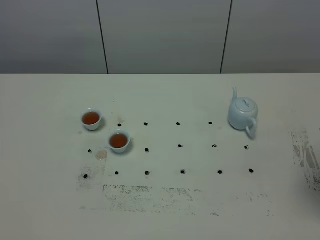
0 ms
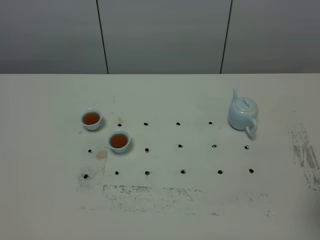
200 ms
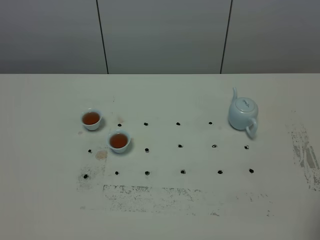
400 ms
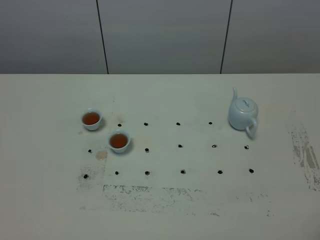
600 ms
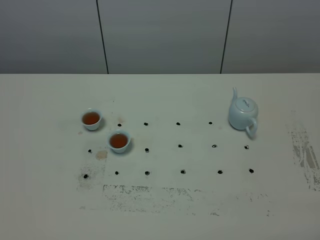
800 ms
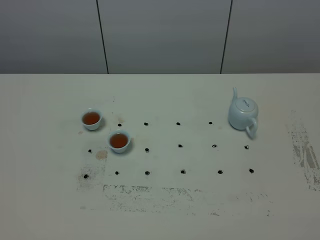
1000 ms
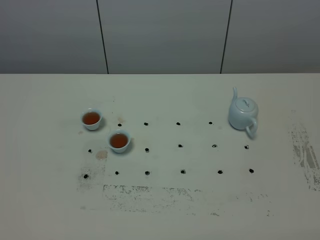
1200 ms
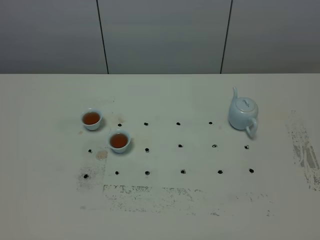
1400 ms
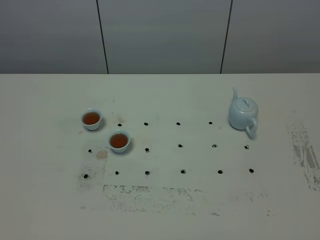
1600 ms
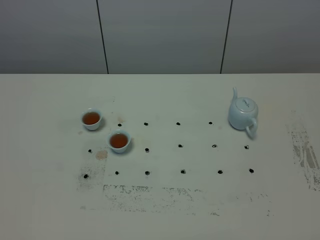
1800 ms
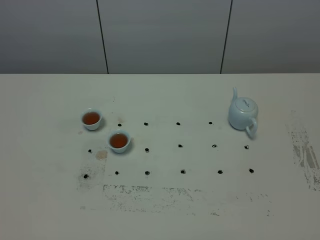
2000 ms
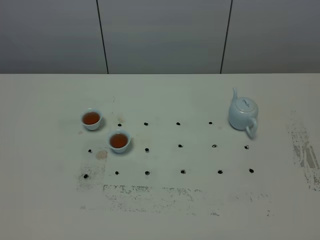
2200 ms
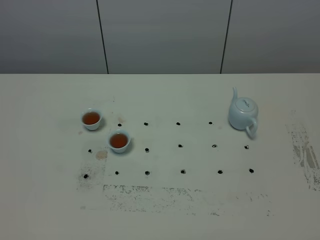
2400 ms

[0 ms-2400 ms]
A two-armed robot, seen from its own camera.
Task of the whole recording: grasp the blue porcelain teapot and pour the tea into the two blue porcelain teacups one by one, put the blue porcelain teapot back in its original place.
0 ms to 1200 ms: The right gripper goes some 20 cm backward.

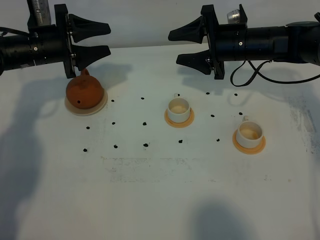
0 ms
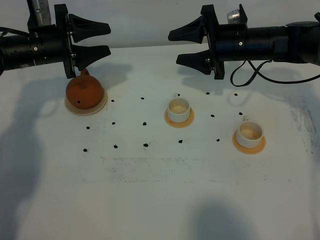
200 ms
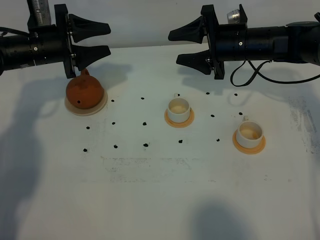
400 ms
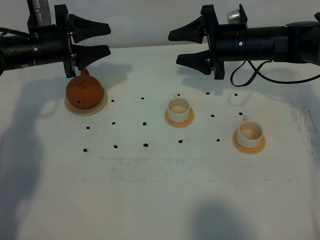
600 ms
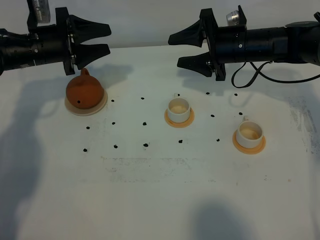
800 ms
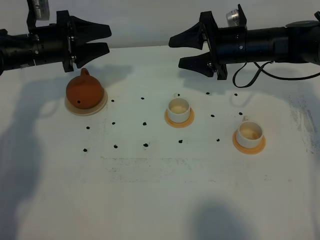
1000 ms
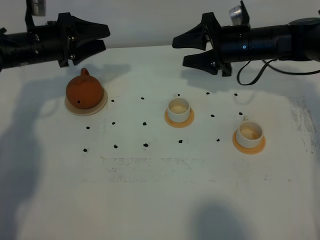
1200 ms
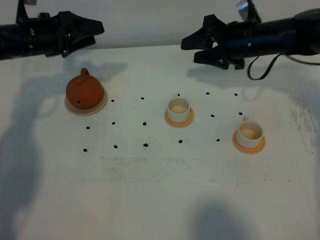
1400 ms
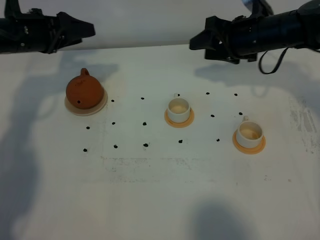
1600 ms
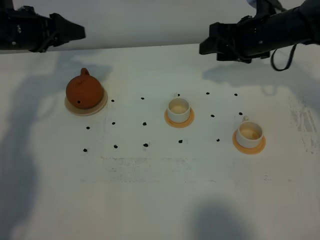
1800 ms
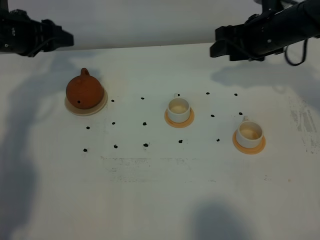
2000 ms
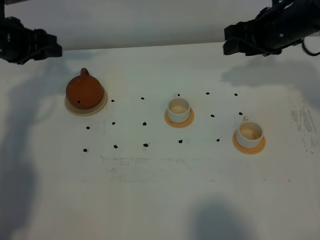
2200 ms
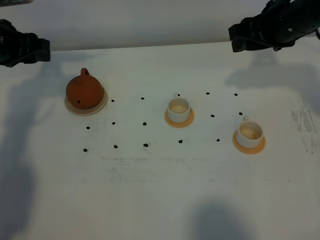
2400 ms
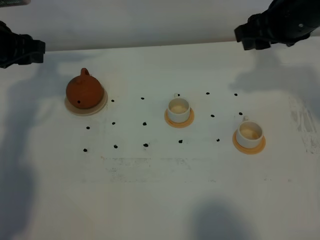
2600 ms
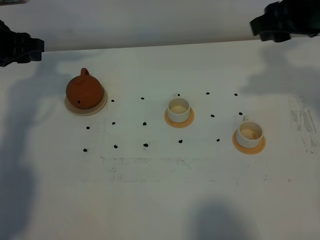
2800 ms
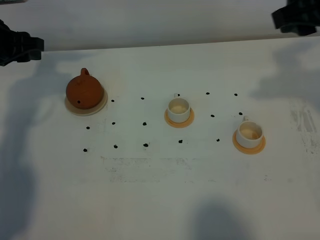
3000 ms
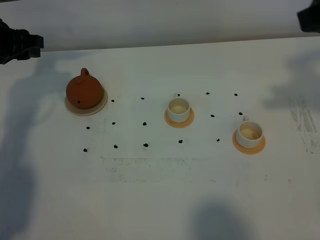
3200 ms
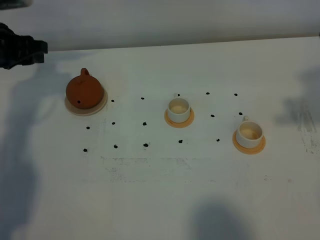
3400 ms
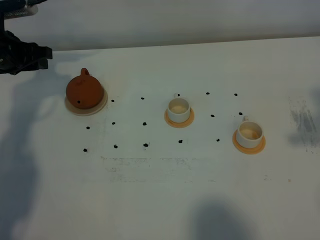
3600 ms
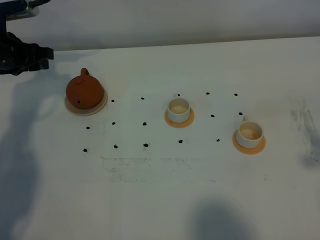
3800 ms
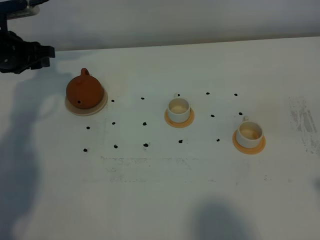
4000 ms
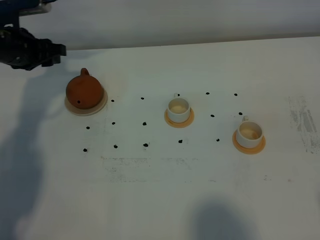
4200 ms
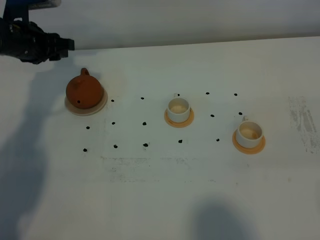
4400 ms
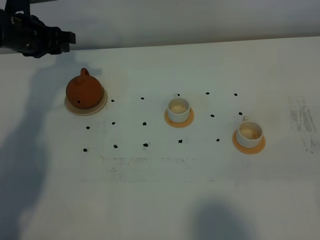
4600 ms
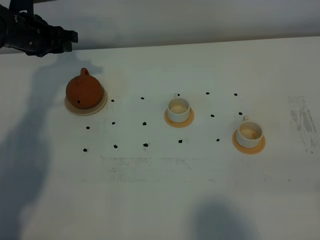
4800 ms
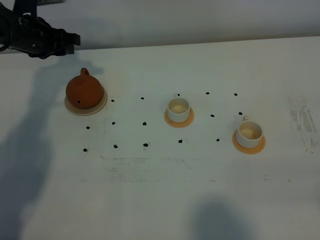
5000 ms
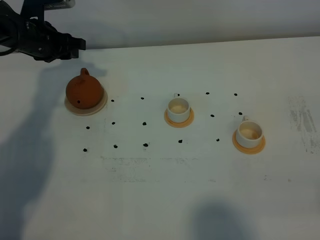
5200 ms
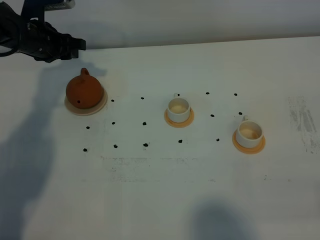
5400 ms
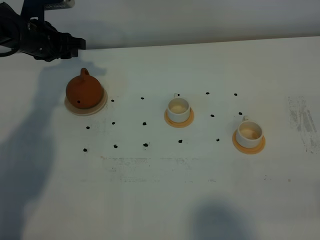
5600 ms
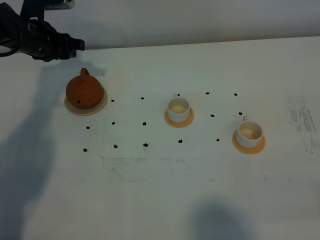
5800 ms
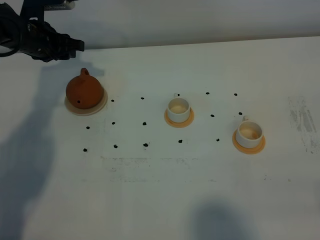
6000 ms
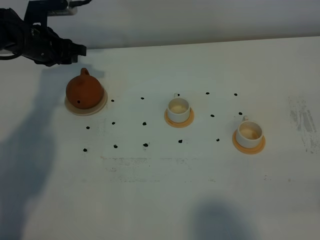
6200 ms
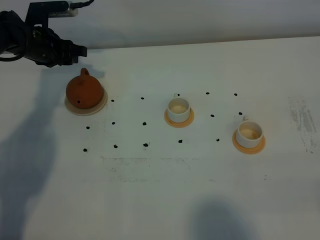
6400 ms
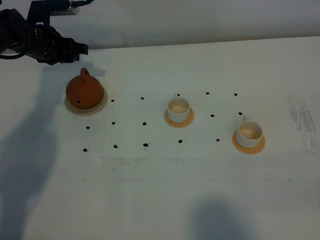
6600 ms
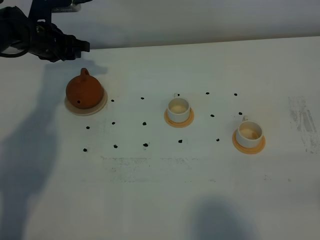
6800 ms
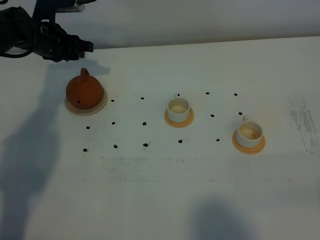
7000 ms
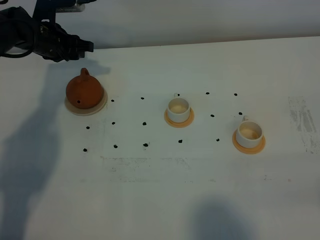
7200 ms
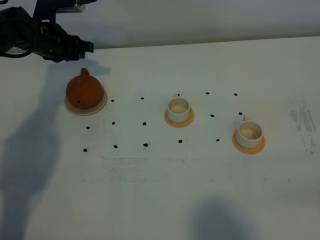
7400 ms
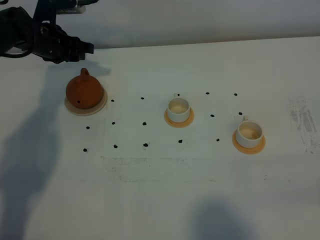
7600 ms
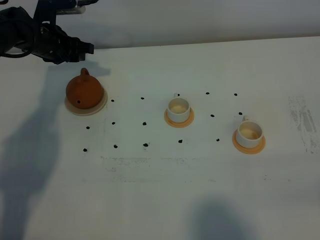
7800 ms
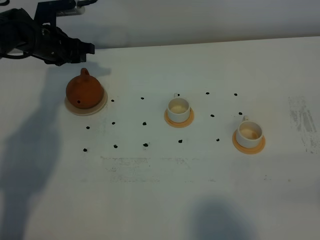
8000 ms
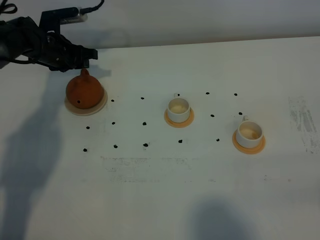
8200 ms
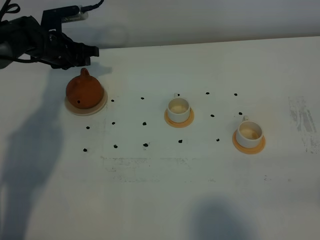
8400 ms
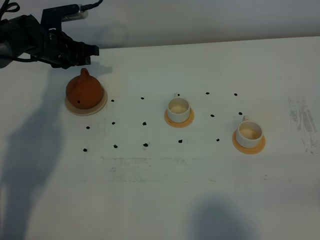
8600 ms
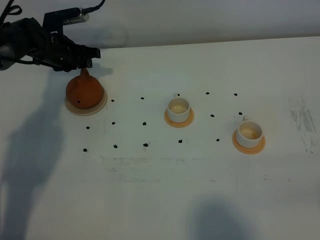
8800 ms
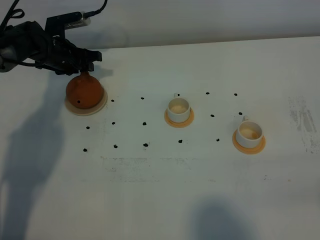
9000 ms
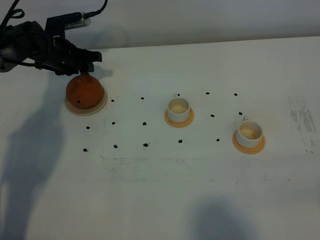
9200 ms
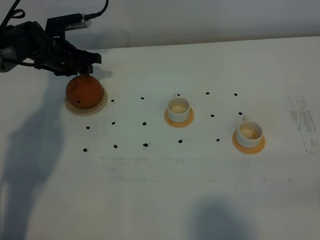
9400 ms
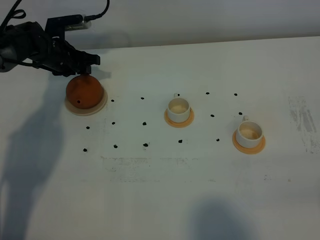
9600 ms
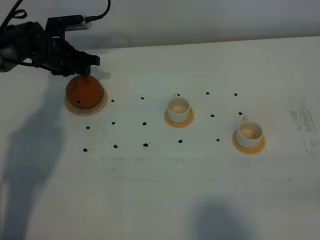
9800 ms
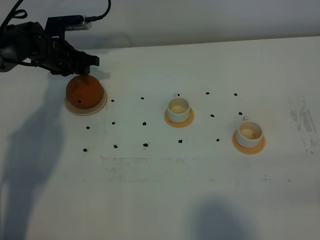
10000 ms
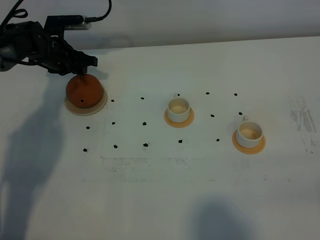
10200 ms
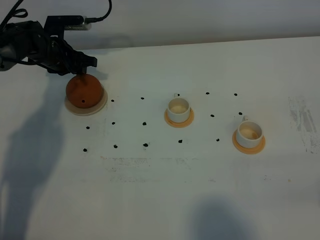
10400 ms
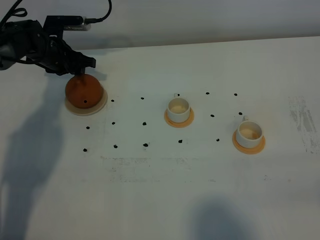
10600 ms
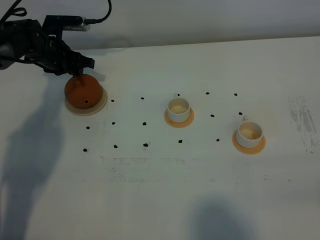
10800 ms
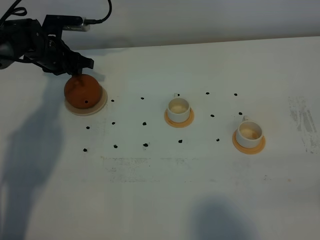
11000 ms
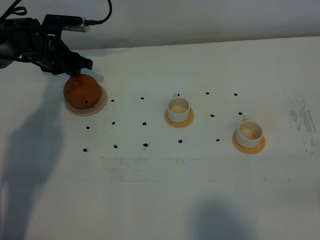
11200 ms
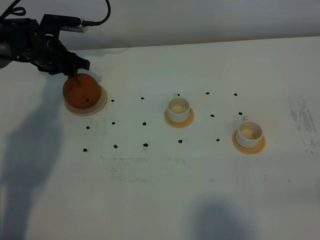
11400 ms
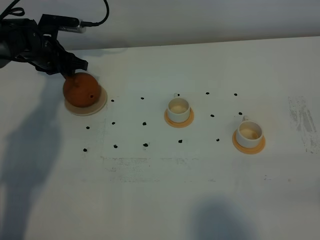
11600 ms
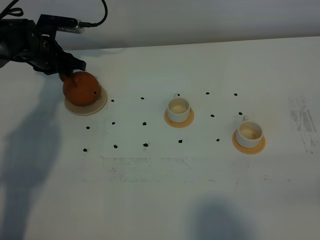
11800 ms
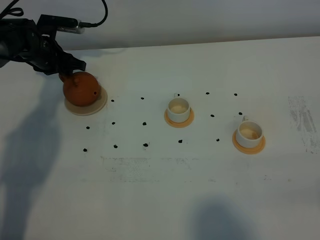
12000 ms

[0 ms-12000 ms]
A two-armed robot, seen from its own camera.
Task of the whole recording: grasp the brown teapot and pour the tea into the two white teacups one by one, put the brown teapot back in its original place.
1600 ms to 3000 ms: The right gripper is displaced upward and backward by approximately 25 cm. The left gripper changes place by some 5 cm.
3000 ms to 4400 ms: The right gripper goes some 25 cm backward; the left gripper ends up some 5 cm from where it was.
6000 ms to 7600 ms: The grippers stay close to where they were, moving slightly.
7600 ms to 9000 ms: The left gripper changes place by roughly 5 cm.
9000 ms to 12000 ms: The grippers make only small movements.

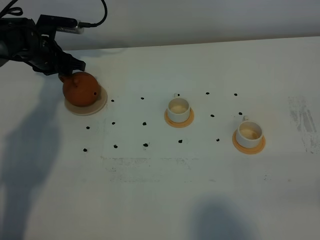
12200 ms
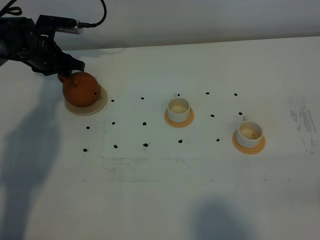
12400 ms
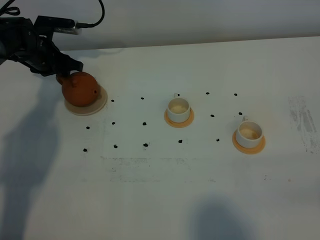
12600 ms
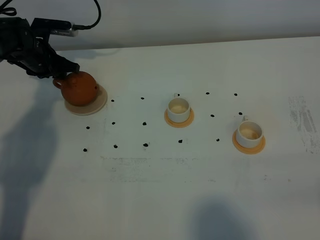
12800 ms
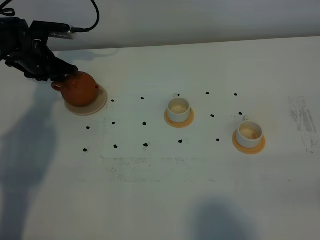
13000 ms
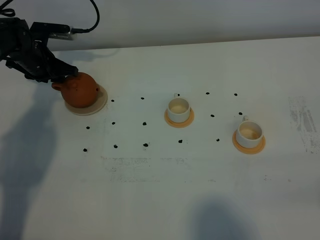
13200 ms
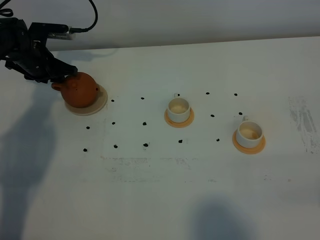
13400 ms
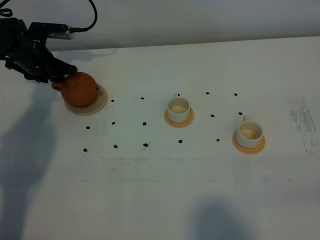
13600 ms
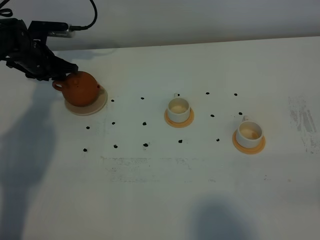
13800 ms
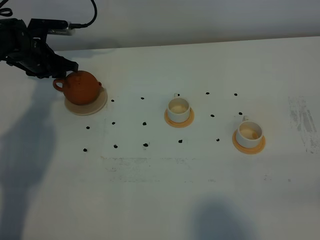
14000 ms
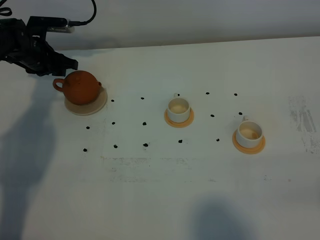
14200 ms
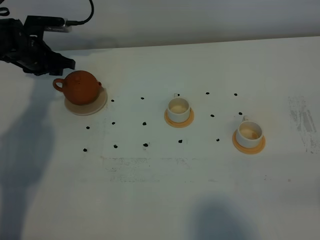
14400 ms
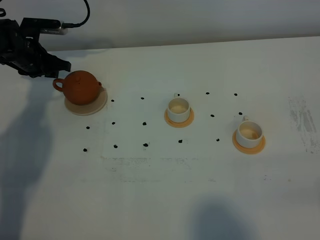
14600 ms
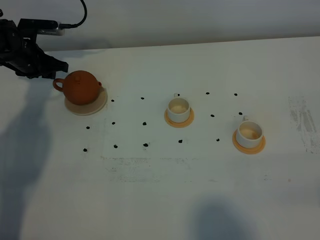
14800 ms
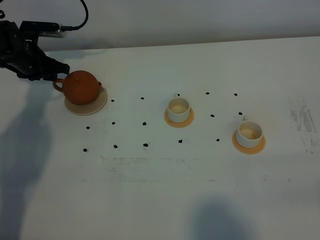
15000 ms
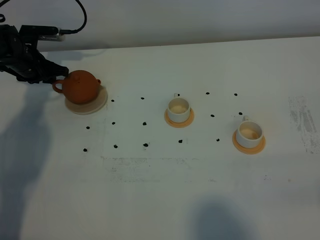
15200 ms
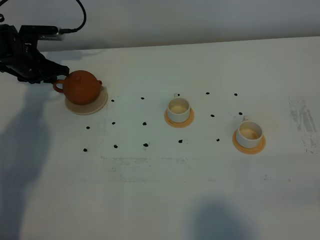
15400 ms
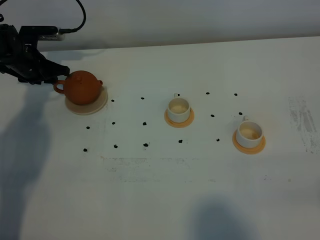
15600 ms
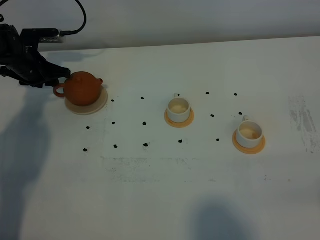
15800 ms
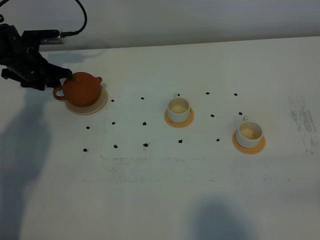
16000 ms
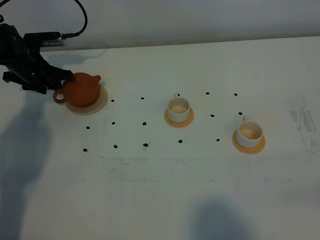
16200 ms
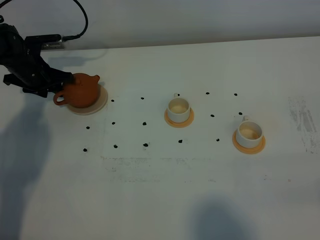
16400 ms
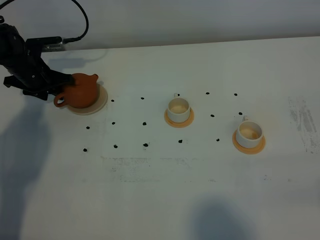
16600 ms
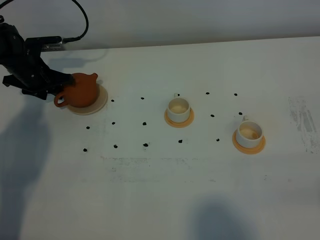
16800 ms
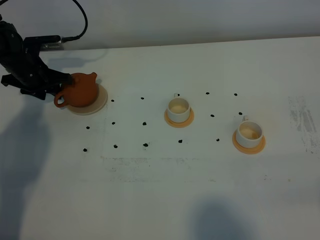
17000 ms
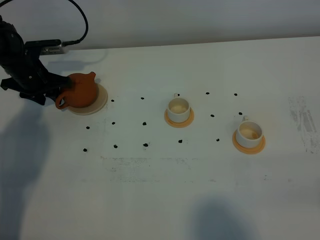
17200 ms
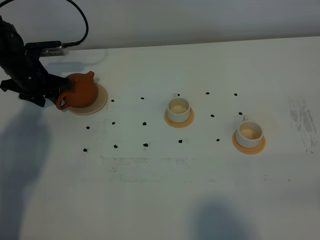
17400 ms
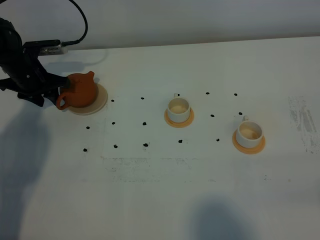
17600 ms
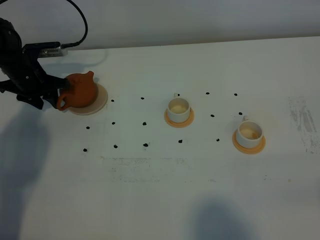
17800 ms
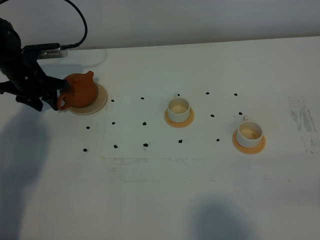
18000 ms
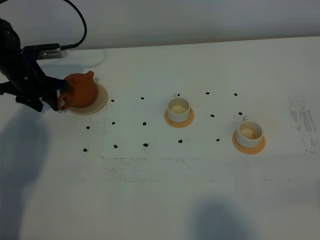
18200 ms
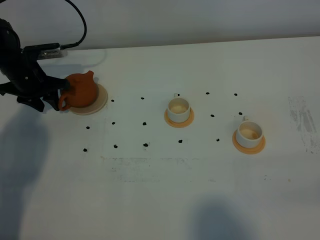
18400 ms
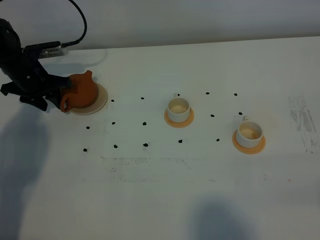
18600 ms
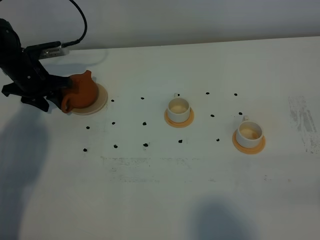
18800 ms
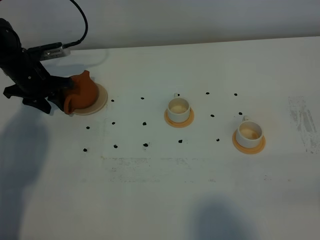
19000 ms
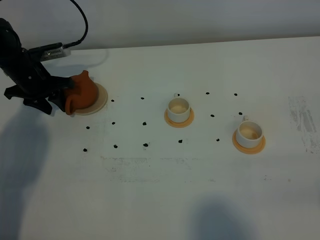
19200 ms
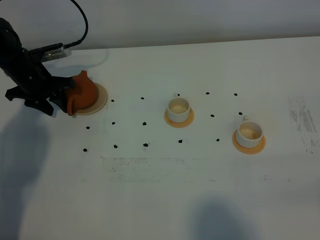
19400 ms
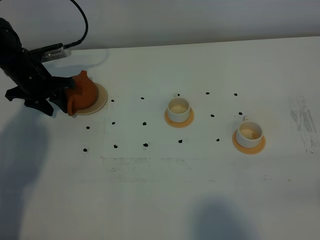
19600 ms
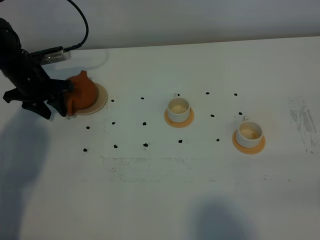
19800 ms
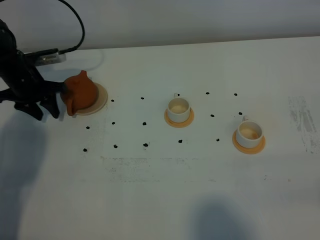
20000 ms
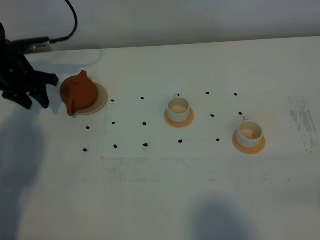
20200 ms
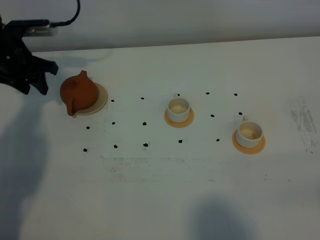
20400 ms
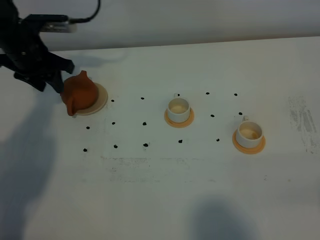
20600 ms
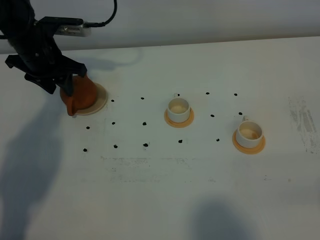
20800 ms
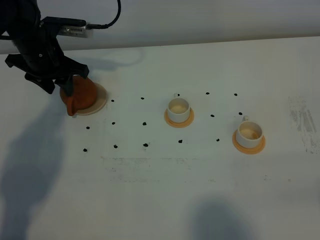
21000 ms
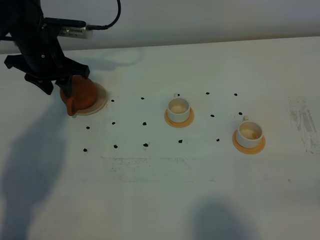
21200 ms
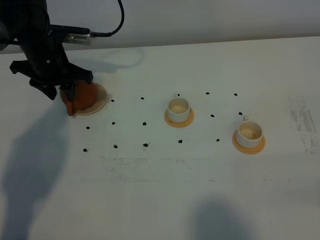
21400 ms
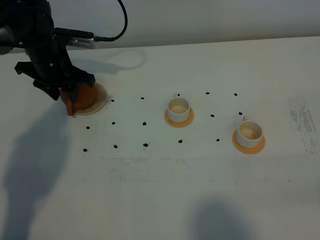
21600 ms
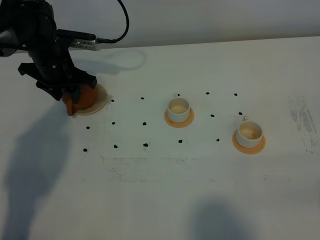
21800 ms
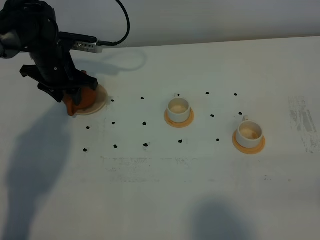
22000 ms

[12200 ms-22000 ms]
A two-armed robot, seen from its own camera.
Task of the whole recording: grasp the brown teapot and pour the tea into the two white teacups one by one, put the brown teapot back in its original place.
12200 ms to 16400 ms: The grippers move only a little.
16400 ms to 19200 ms: The grippers stay close to where they were, moving slightly.
19200 ms to 20600 ms: The left gripper moves upward, roughly 10 cm.
20600 ms to 22000 ms: The left gripper goes about 5 cm downward.
